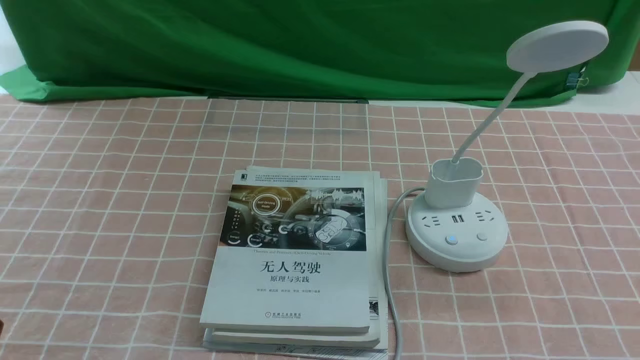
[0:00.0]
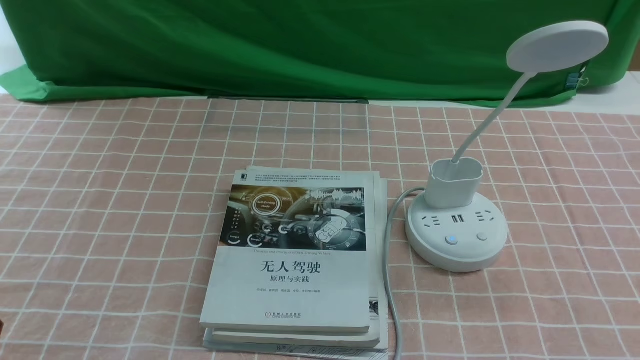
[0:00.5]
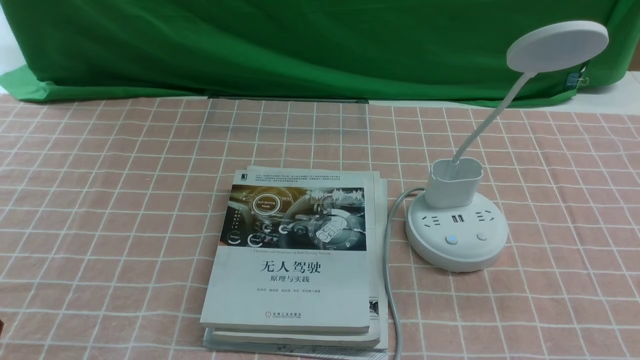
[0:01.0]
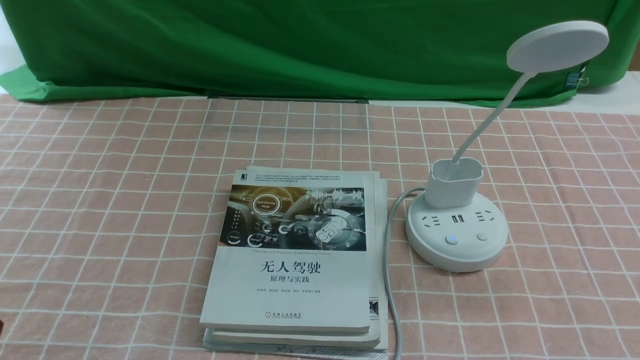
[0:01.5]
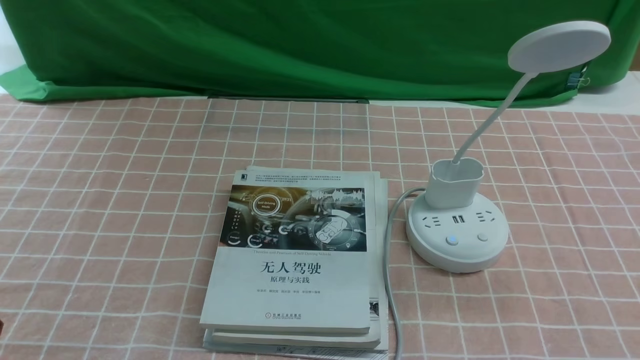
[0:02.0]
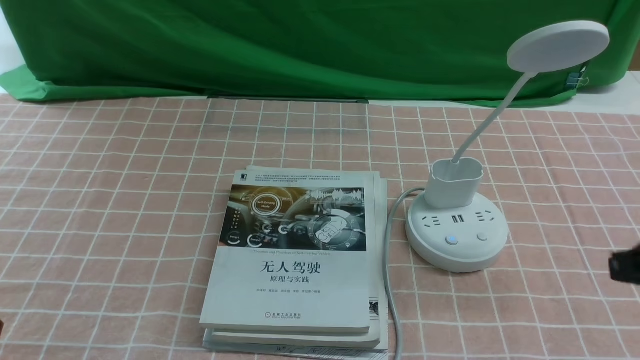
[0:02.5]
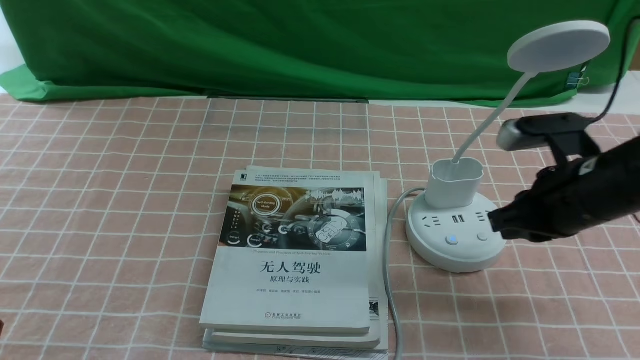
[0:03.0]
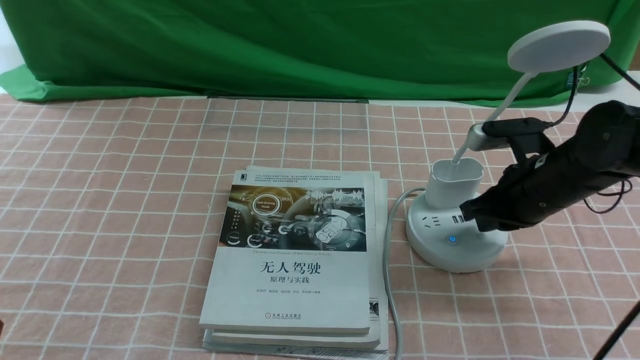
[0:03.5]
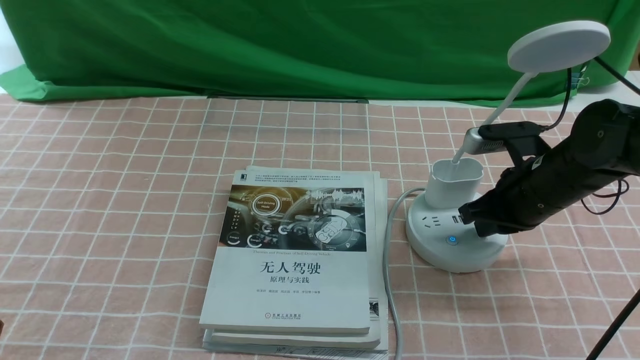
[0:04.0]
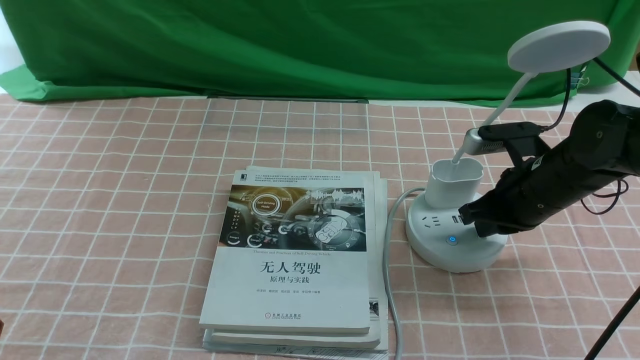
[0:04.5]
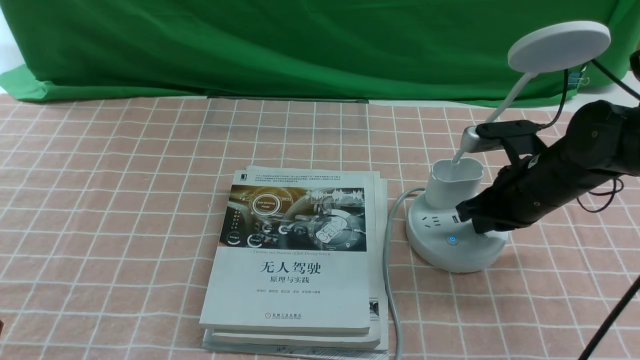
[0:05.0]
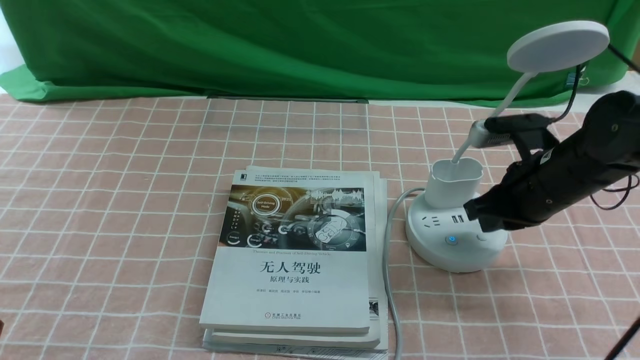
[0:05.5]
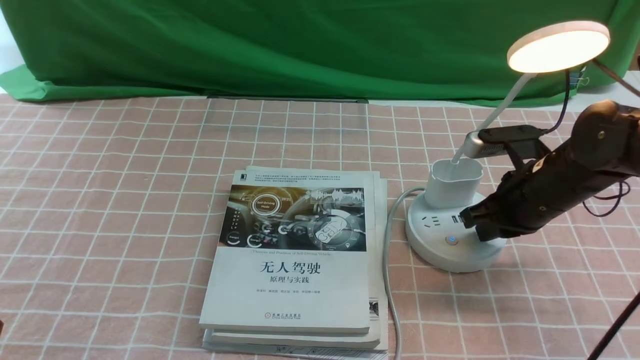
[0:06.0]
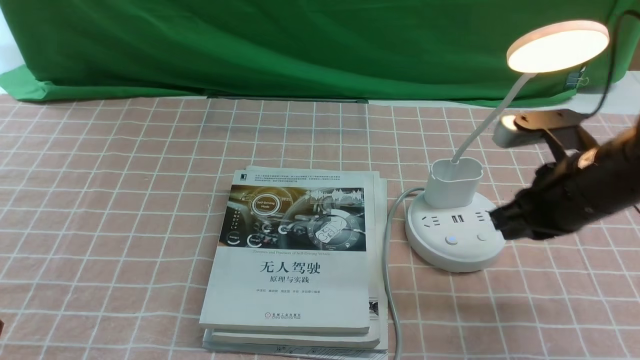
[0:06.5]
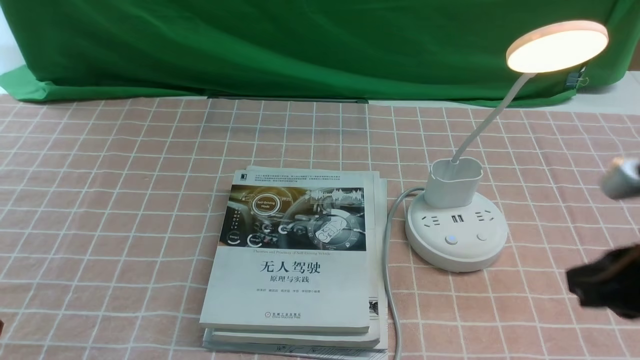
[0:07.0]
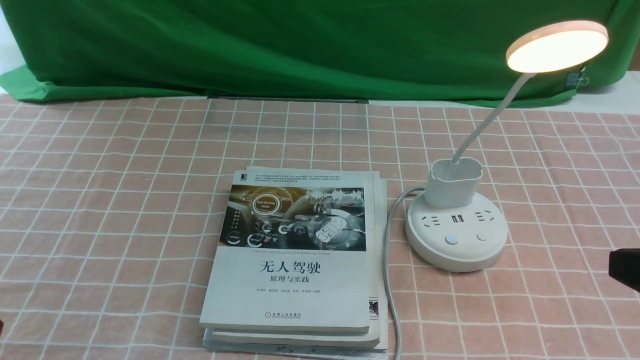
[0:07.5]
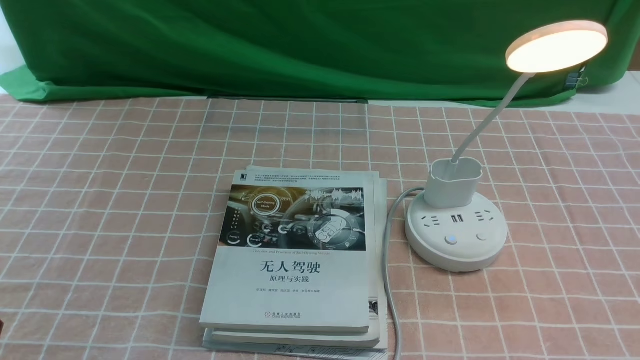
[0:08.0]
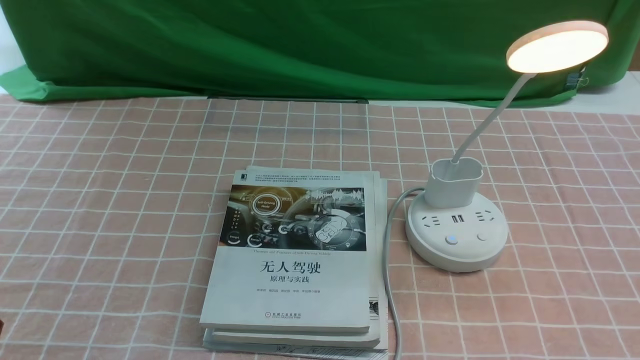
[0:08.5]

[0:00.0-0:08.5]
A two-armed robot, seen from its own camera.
Step, 0:00.0 to 0:06.0: use the right arm to press the button switch on the lamp holder.
0:02.0 to 0:04.0: The right gripper moves forward, approximately 30 cm.
0:04.0 to 0:06.5: The right gripper heads backward and upward, covering about 10 cm.
0:06.5 to 0:08.5: The right gripper heads backward, covering about 25 cm.

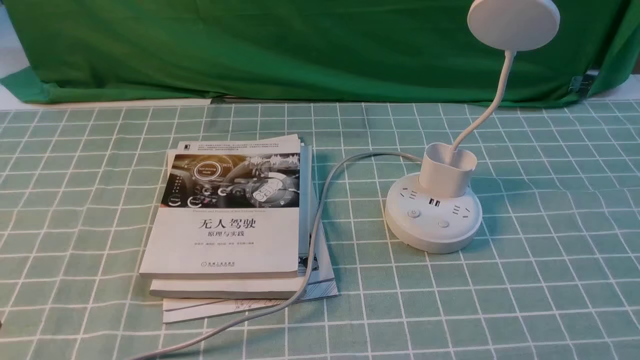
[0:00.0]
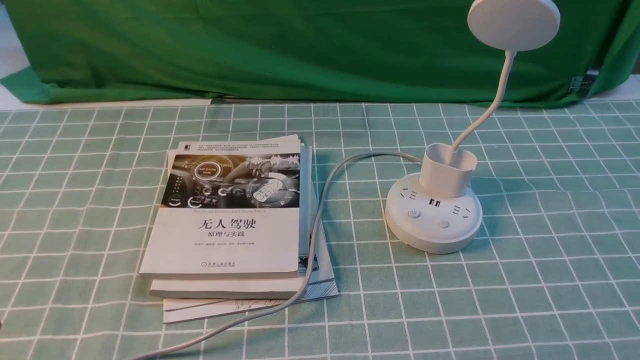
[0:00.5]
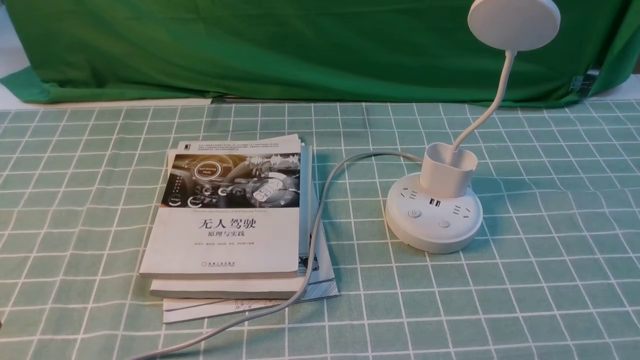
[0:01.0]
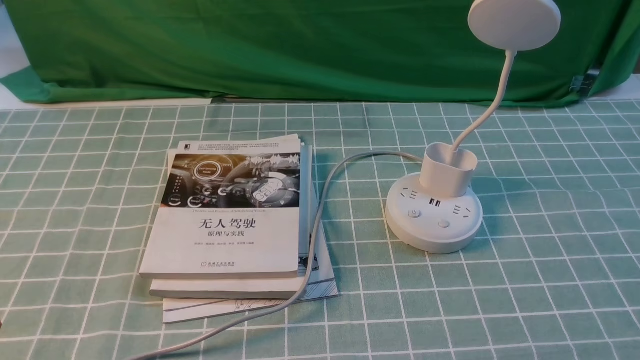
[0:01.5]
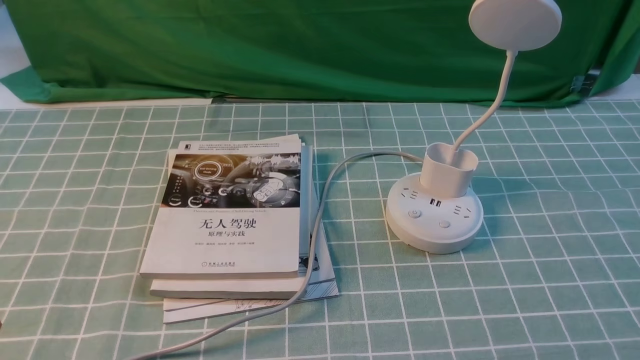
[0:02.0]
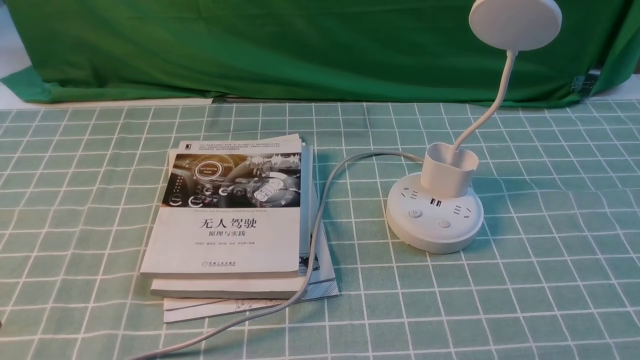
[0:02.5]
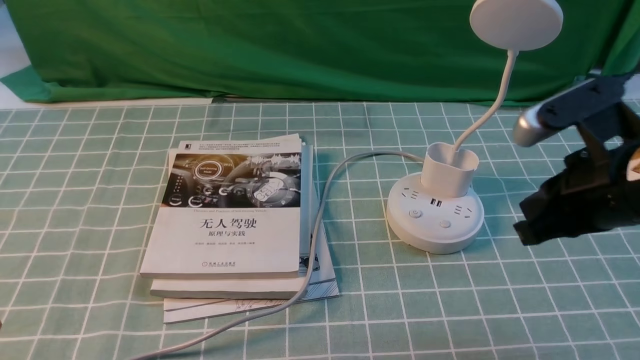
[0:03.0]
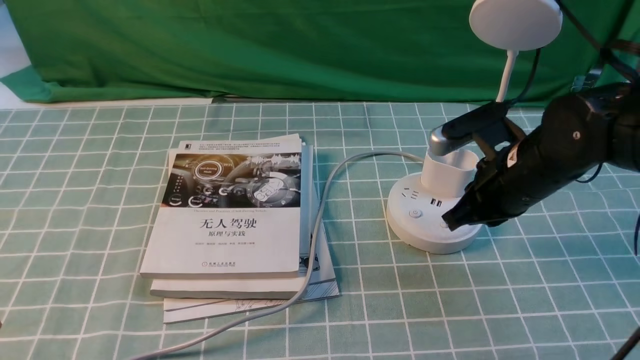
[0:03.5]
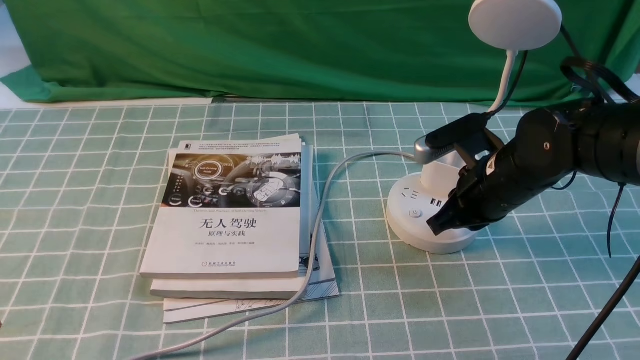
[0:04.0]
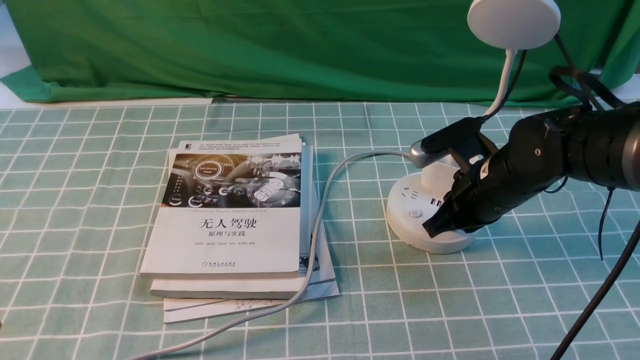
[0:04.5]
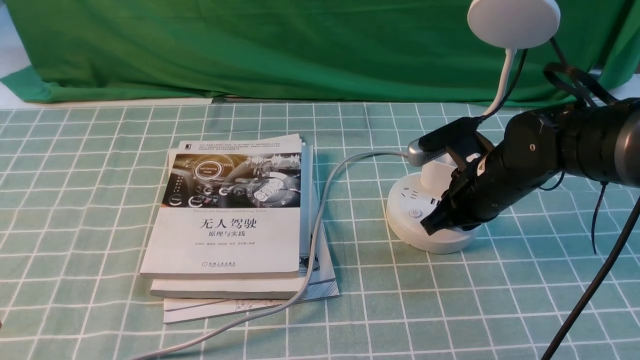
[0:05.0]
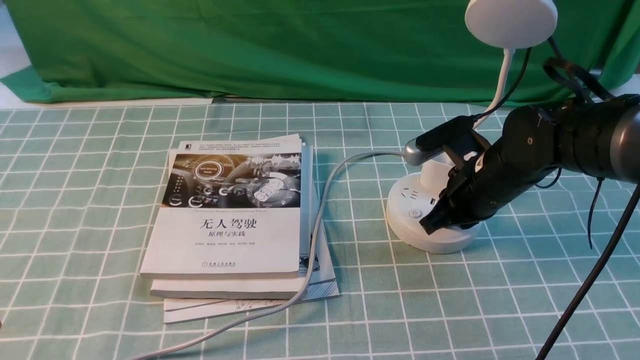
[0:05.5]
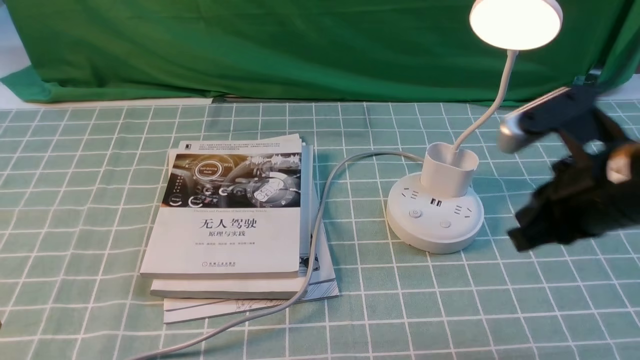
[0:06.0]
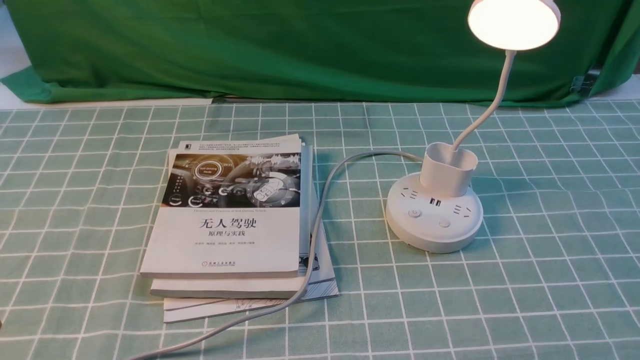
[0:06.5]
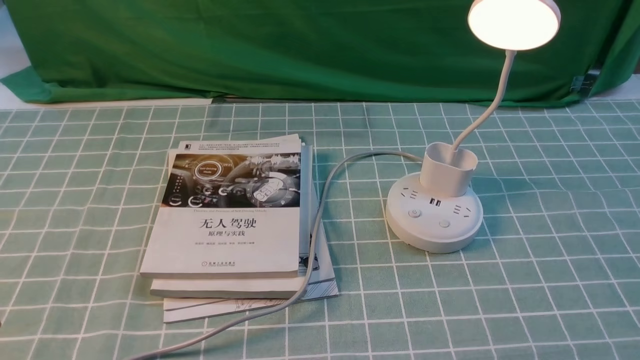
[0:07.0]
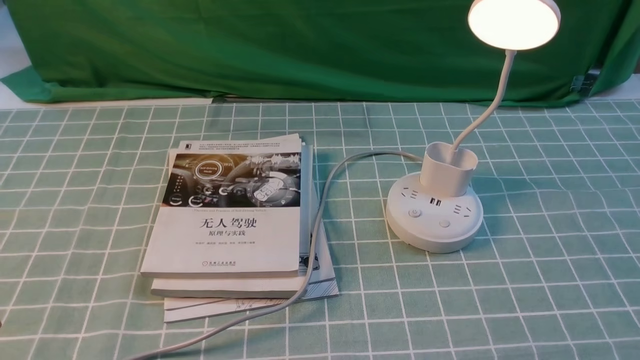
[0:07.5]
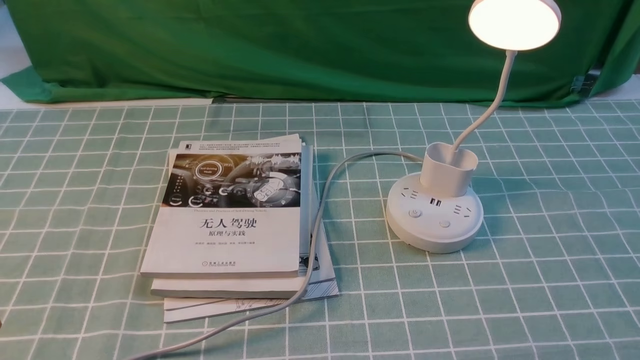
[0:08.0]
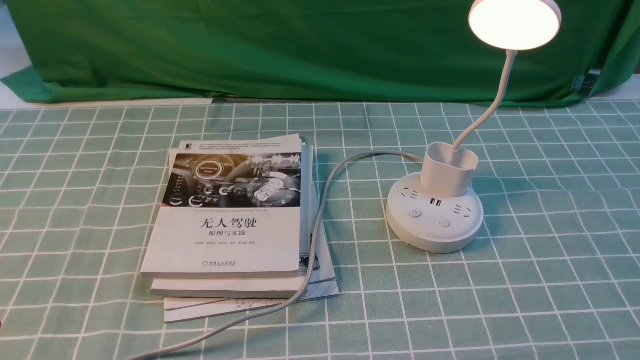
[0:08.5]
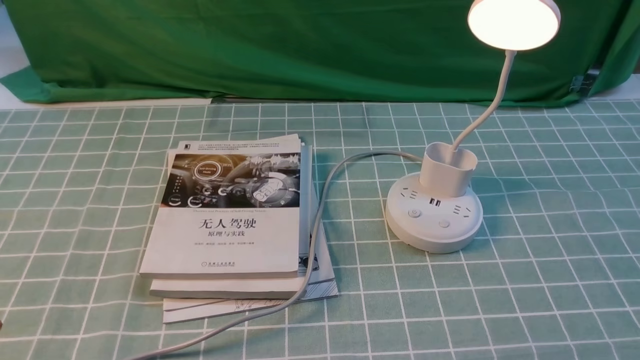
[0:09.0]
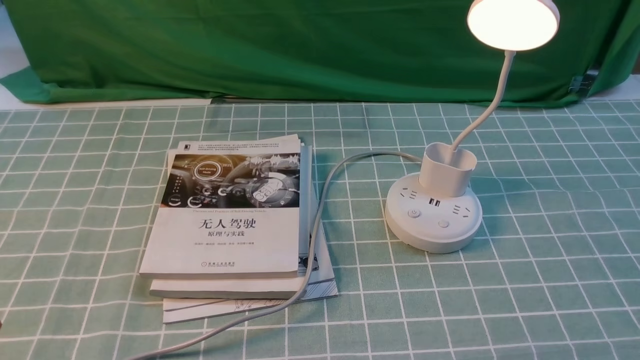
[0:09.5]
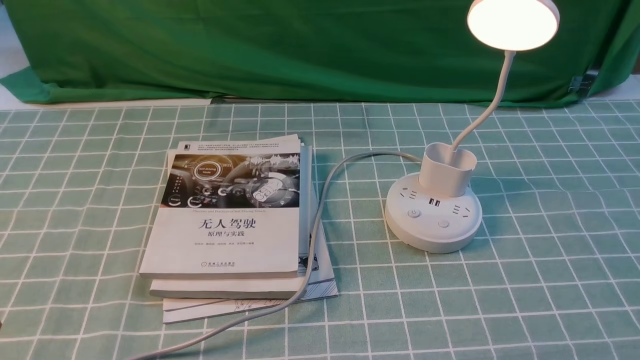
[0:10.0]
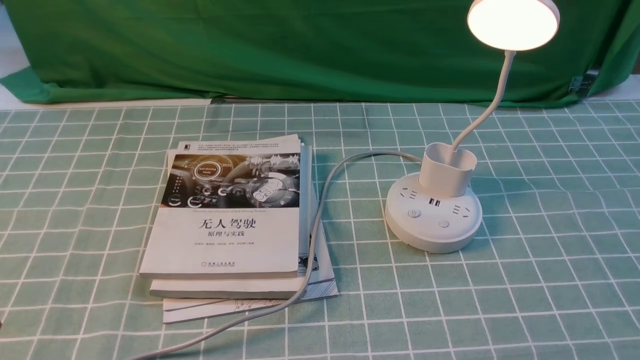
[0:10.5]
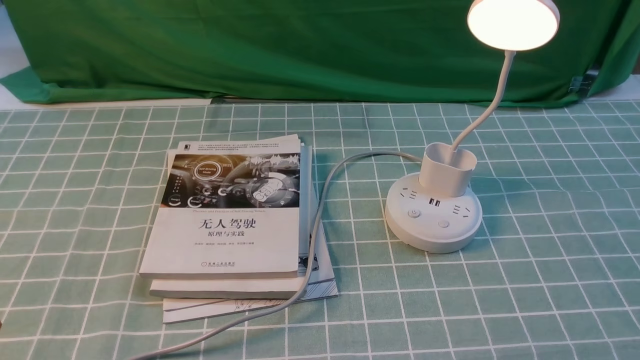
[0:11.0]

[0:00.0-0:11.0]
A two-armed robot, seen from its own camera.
Step, 0:00.0 to 0:05.5: use the right arm to press the button switch on the lamp holder.
0:02.0 to 0:03.5: The right gripper is displaced forward and to the left by some 30 cm, and closes.
0:03.5 to 0:05.5: There are only small adjustments of the grippers.
0:05.5 to 0:07.5: The right gripper shifts approximately 35 cm backward and to the right, and opens its fingers.
0:07.5 to 0:11.0: Both grippers stay put.
